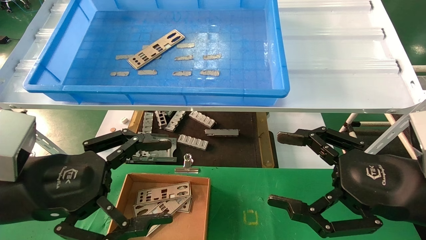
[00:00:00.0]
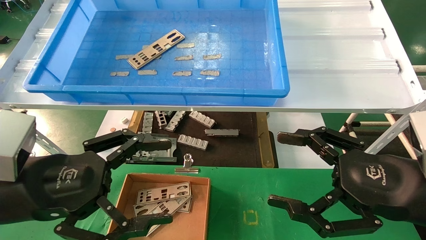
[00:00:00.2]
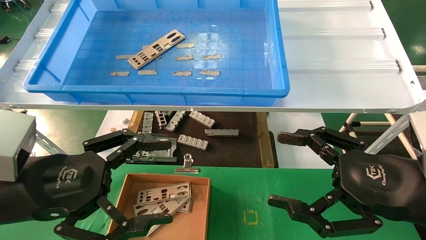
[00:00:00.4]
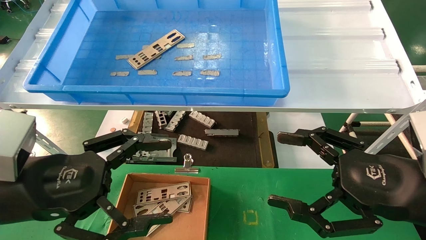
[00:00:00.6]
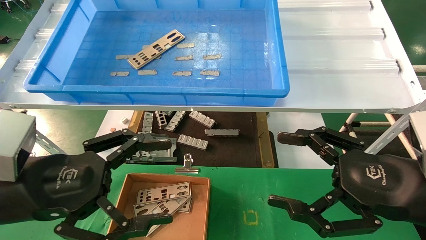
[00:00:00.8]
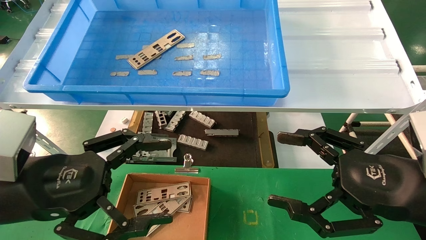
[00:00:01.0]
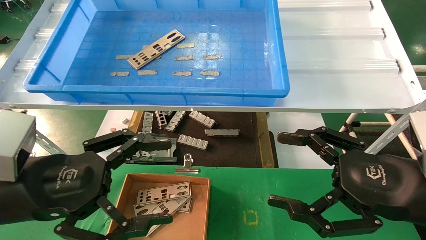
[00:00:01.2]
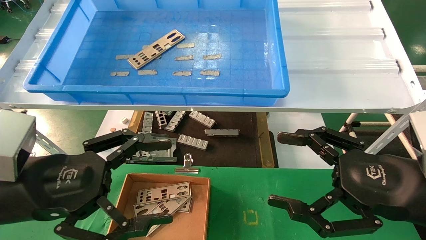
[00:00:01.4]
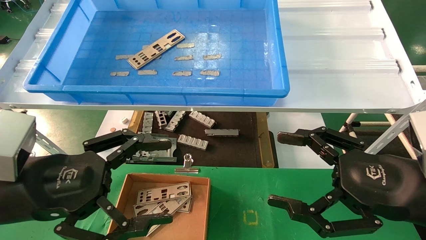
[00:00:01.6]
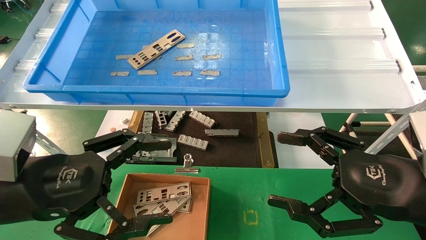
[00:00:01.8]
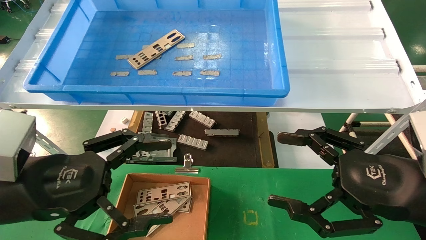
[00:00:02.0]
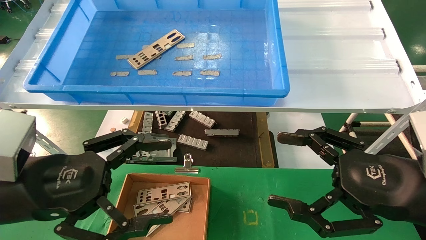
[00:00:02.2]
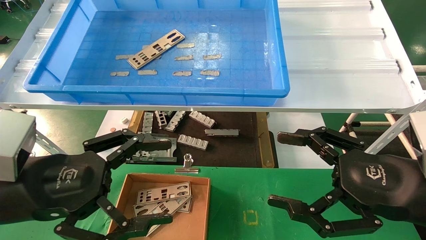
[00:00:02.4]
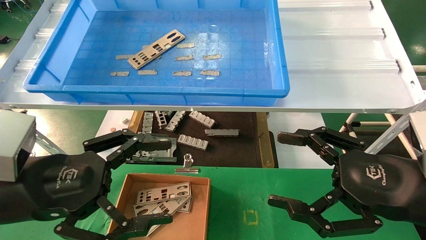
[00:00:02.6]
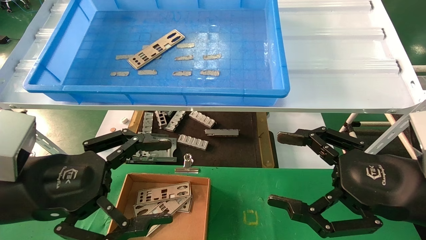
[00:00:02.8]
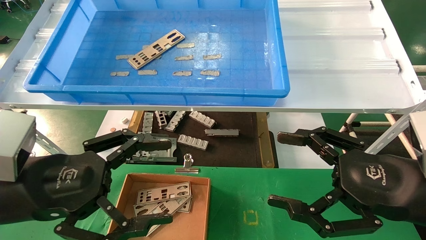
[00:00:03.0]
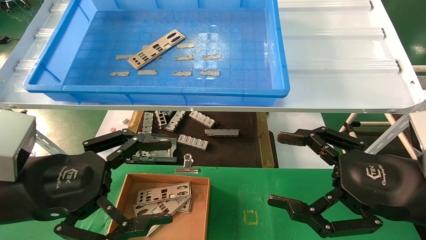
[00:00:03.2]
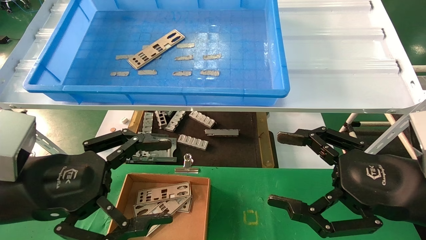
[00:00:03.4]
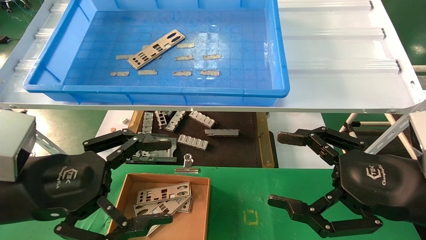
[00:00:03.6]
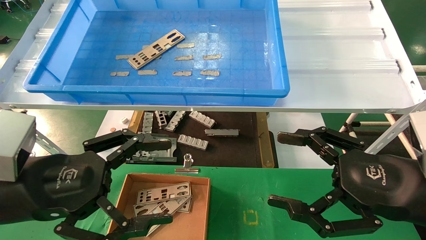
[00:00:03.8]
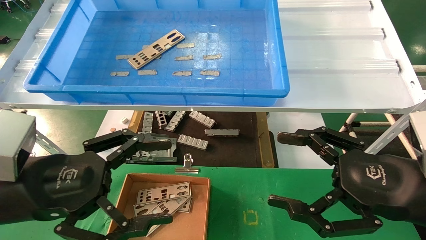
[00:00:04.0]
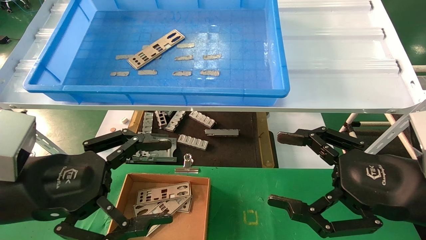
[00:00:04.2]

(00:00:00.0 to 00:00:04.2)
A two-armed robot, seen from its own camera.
Task of the whole recording: pick up the parts on the tray and put them in the cardboard box.
00:00:00.0 - 00:00:04.2: Neither gripper changes place.
